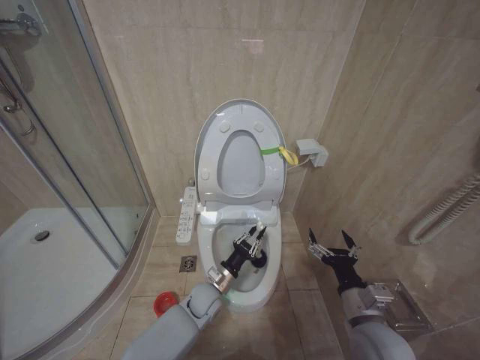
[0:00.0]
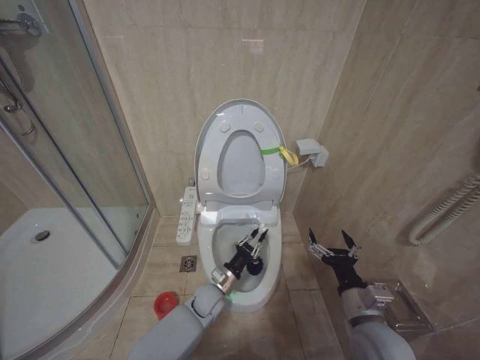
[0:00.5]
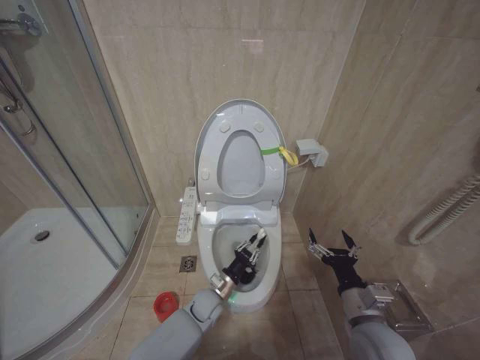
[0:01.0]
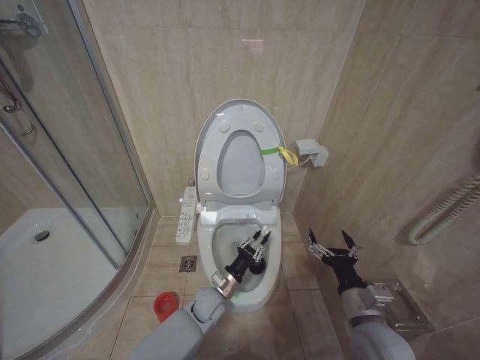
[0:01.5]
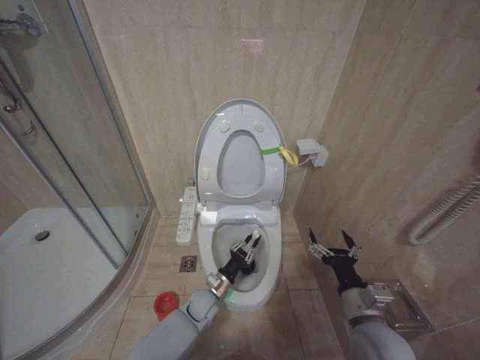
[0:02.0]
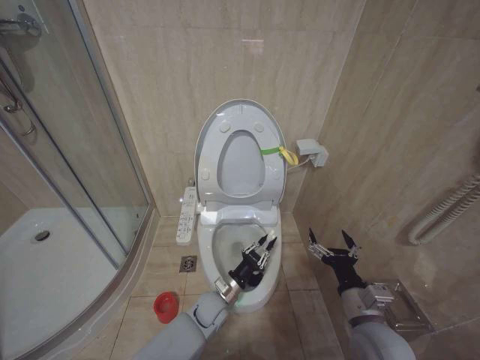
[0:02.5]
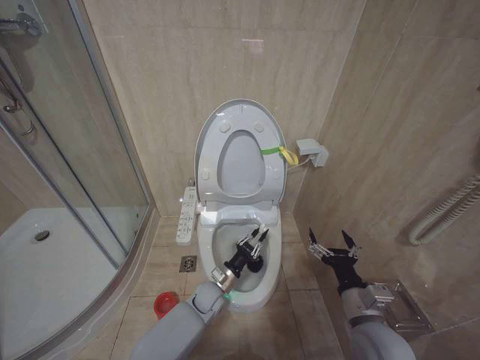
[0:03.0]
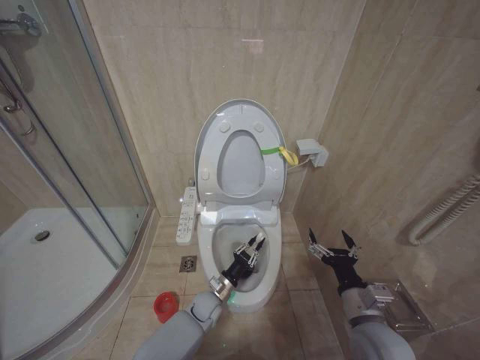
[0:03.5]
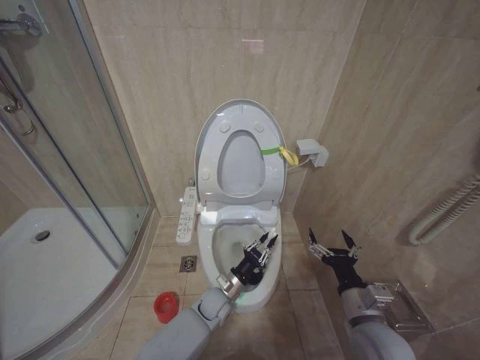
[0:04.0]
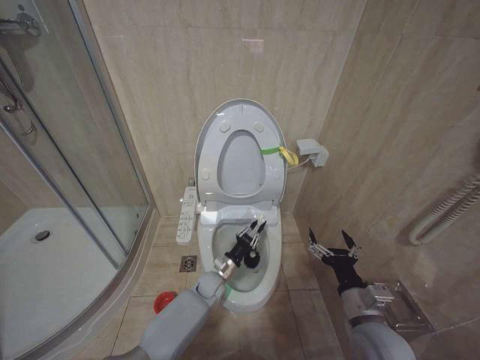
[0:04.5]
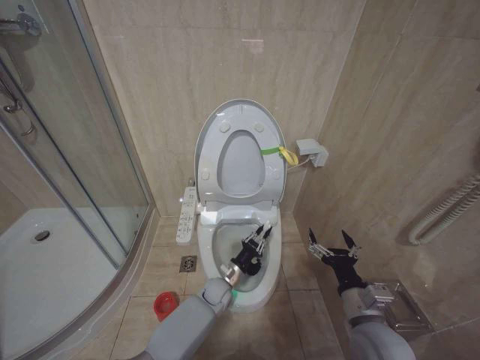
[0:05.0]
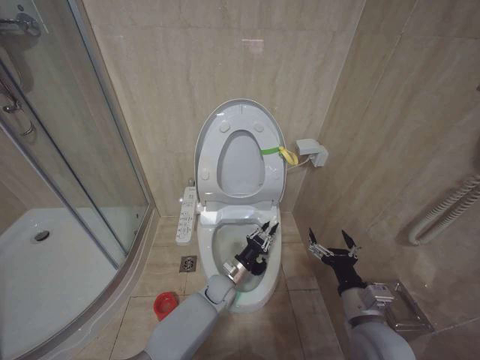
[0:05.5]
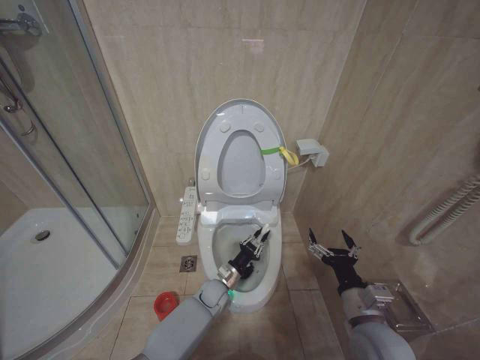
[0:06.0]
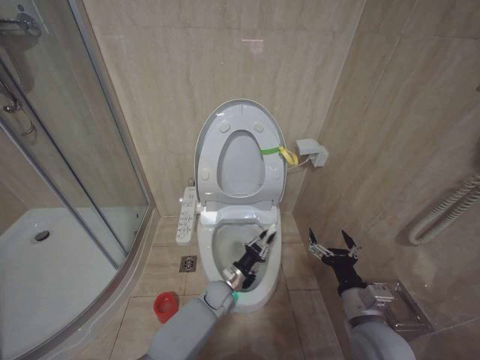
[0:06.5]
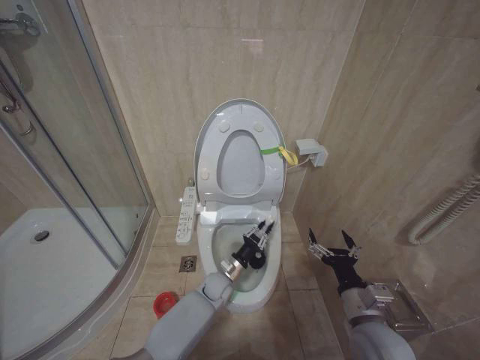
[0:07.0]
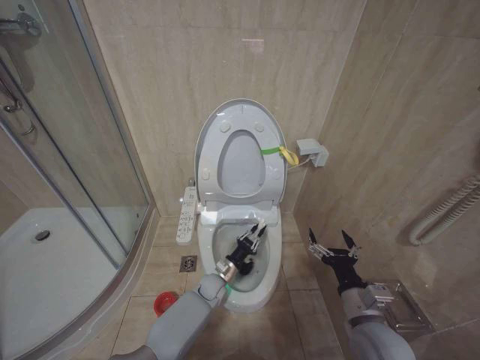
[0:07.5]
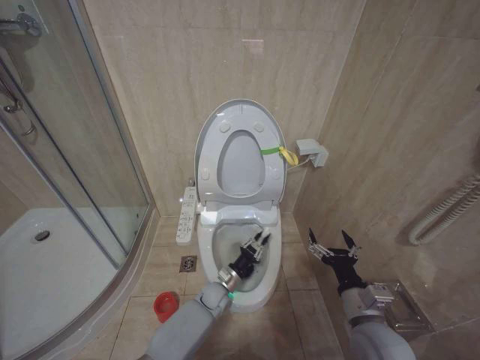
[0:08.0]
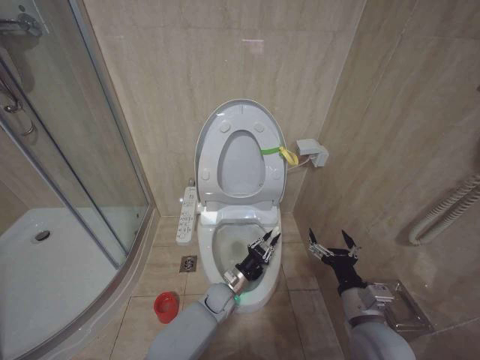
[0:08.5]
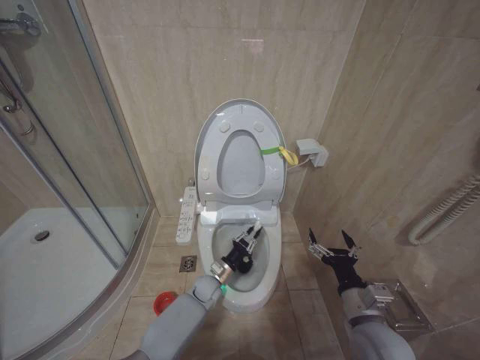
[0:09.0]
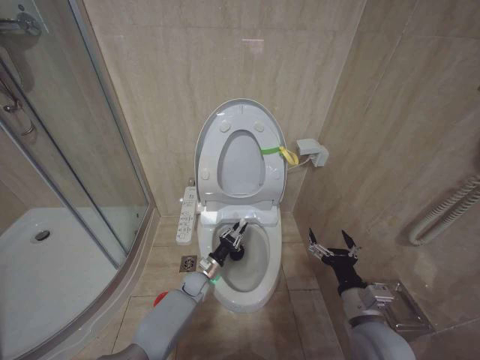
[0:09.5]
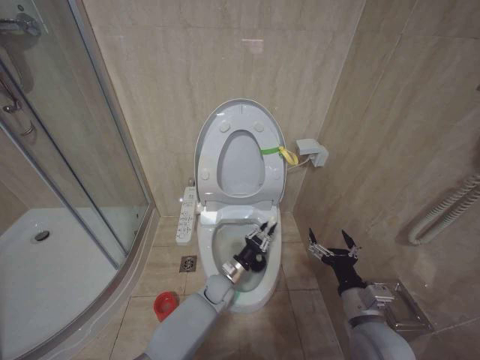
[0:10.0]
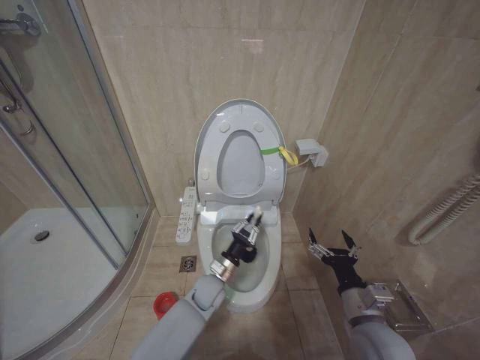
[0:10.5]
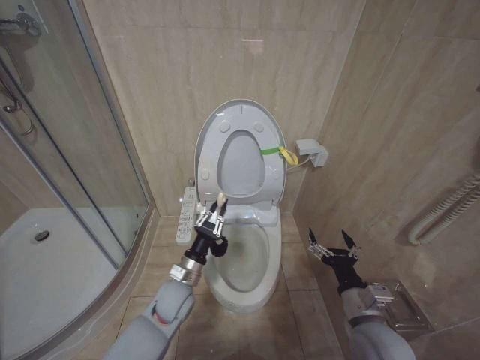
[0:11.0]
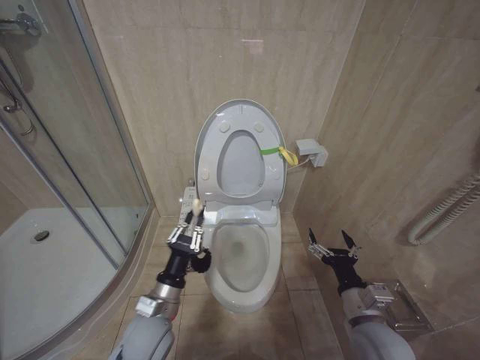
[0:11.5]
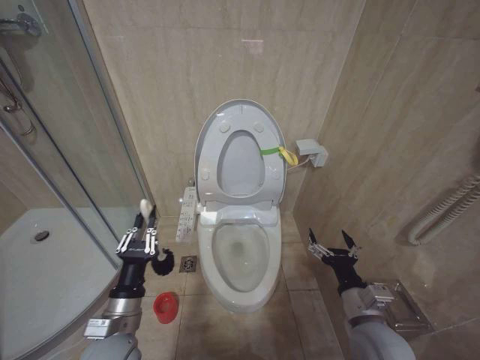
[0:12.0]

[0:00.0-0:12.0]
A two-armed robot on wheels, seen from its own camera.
Task of the whole recording: Open the toilet lid, clean the toilet bowl with a toilet brush, close the toilet lid, and flush.
0:00.0 to 0:02.0: The left gripper shifts about 5 cm downward.
0:02.0 to 0:04.0: The grippers move only a little.
0:08.0 to 0:10.0: The left gripper reaches approximately 5 cm to the left, then returns.
0:10.0 to 0:12.0: The left gripper goes roughly 30 cm backward, to the left and upward.

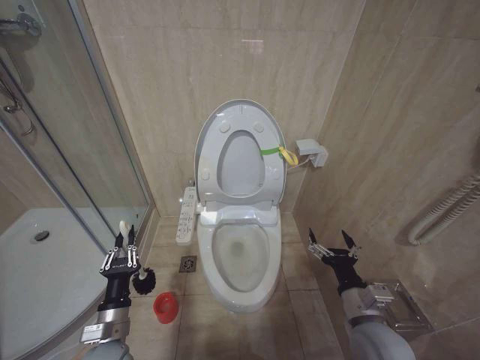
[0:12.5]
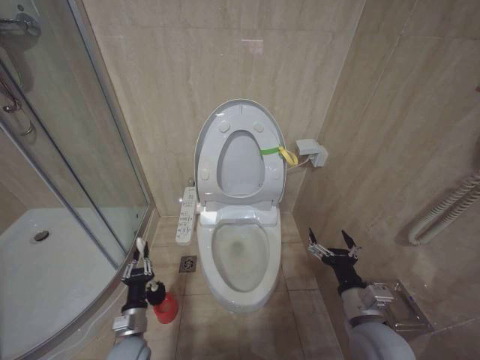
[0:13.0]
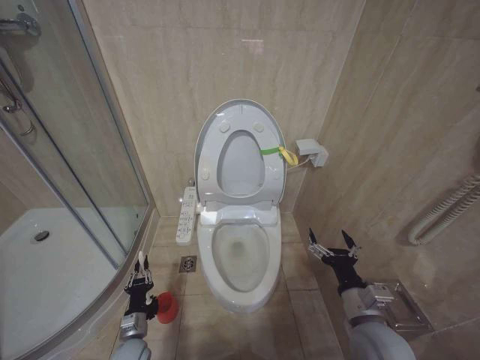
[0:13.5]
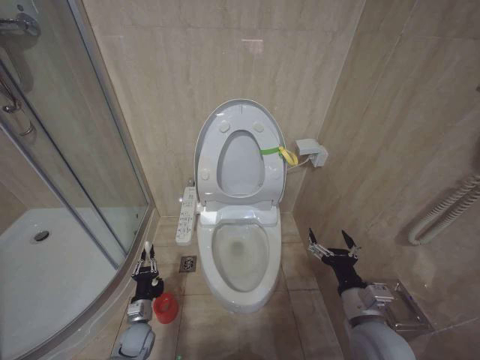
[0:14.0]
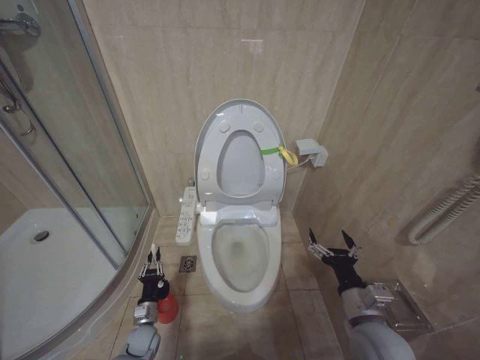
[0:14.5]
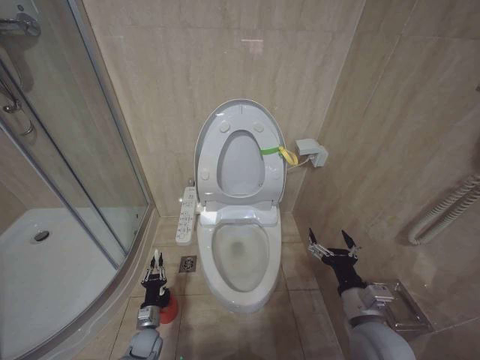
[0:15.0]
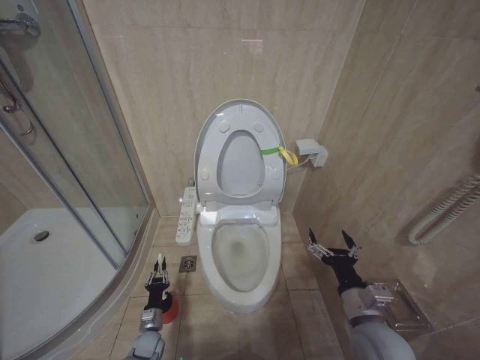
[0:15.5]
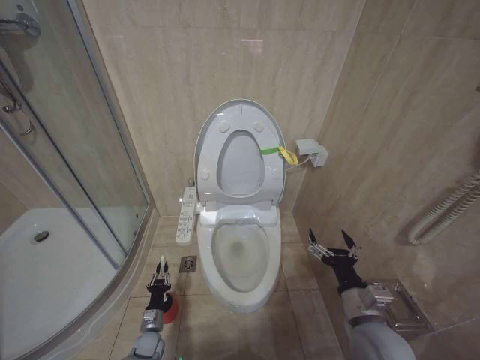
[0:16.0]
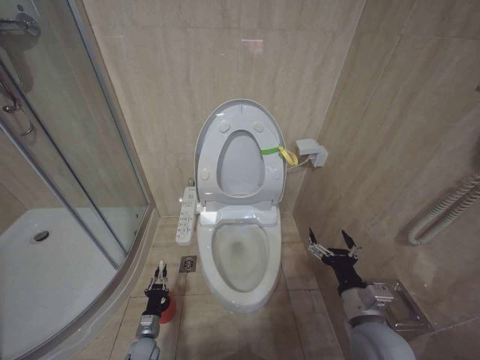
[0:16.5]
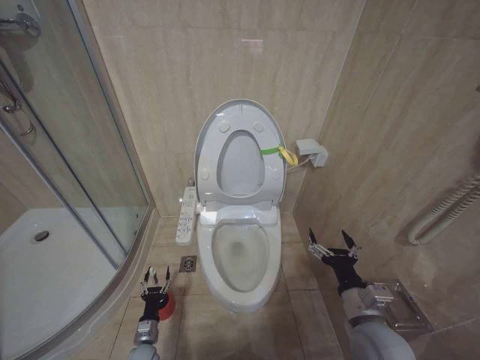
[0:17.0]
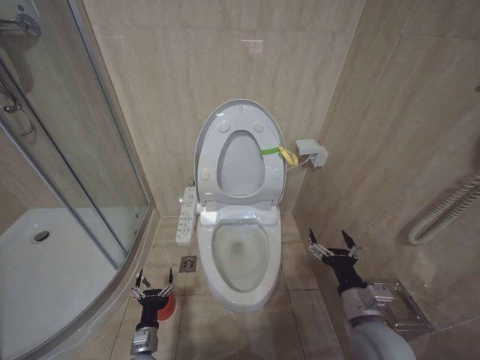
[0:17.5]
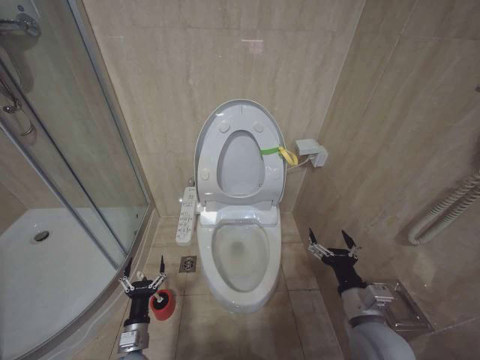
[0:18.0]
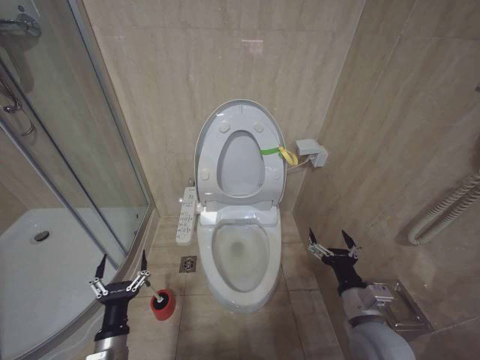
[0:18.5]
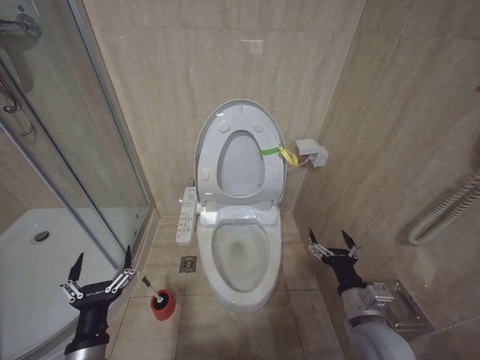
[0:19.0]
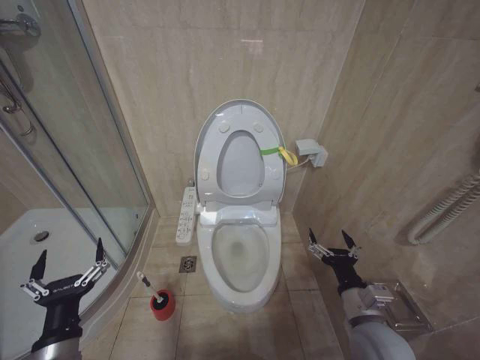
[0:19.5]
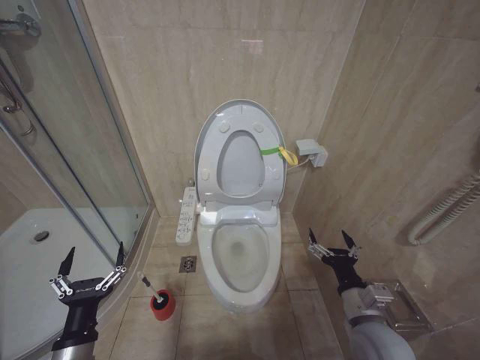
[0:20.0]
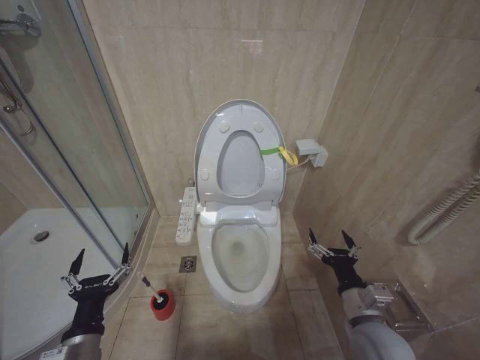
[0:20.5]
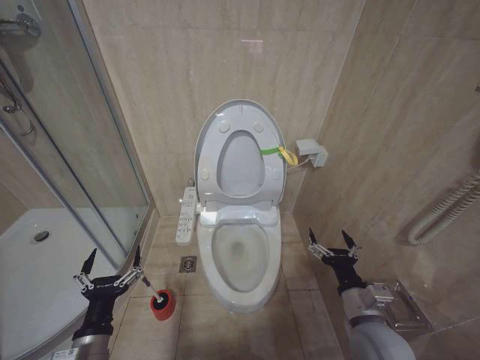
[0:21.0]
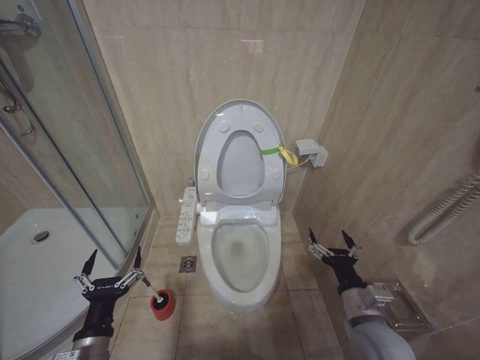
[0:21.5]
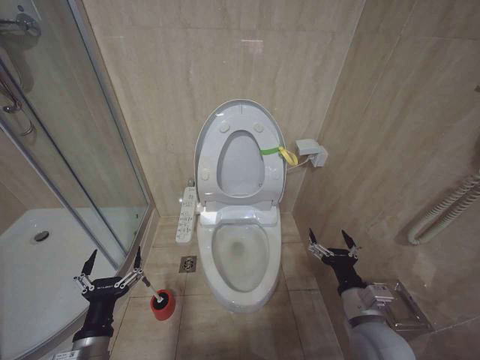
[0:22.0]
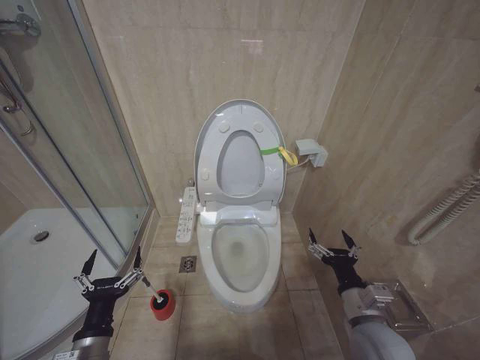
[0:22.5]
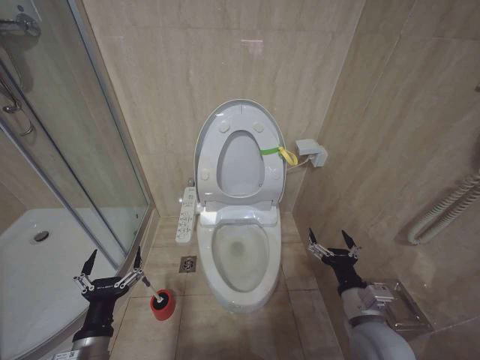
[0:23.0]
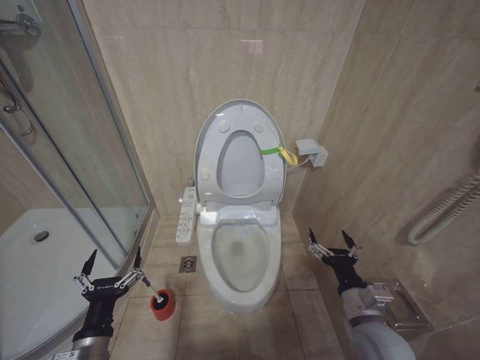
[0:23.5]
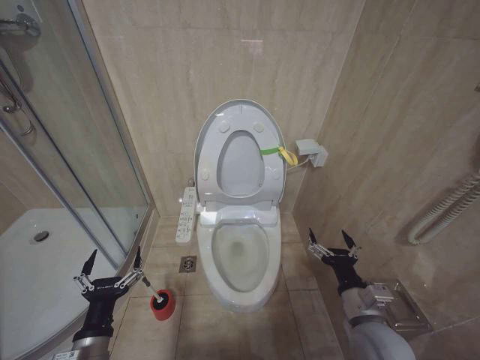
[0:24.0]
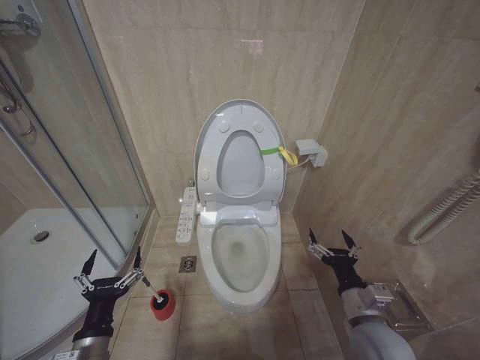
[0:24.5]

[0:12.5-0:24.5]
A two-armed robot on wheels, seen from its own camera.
Task of the whole recording: Open the toilet lid, clean the toilet bowl with a toilet brush, close the toilet lid, and flush.
0:12.5 to 0:14.5: The left gripper is displaced downward and forward by approximately 25 cm.
0:14.5 to 0:16.5: The left gripper travels downward by roughly 5 cm.
0:16.5 to 0:18.5: The left gripper shifts roughly 25 cm upward and backward, and opens up.
0:18.5 to 0:20.5: The left gripper travels upward by approximately 10 cm.
0:20.5 to 0:22.5: There are only small adjustments of the grippers.
0:22.5 to 0:24.5: Both grippers stay put.

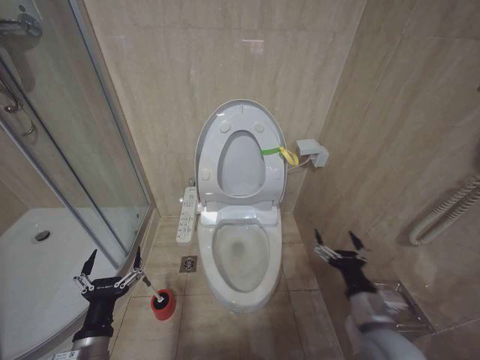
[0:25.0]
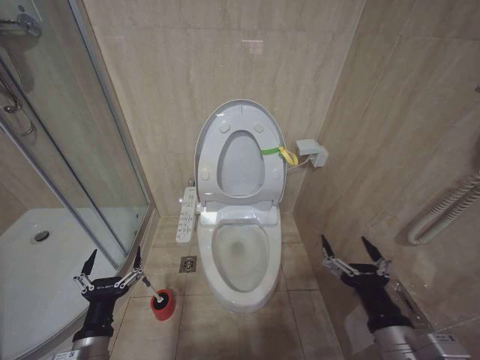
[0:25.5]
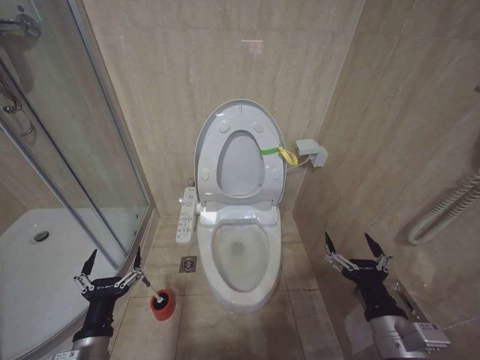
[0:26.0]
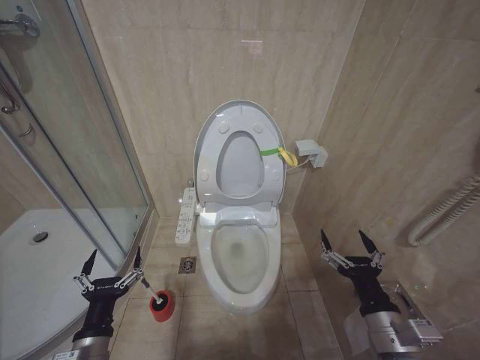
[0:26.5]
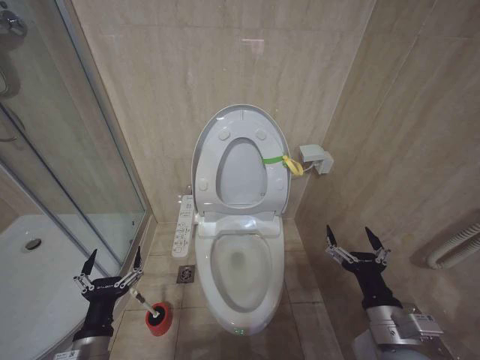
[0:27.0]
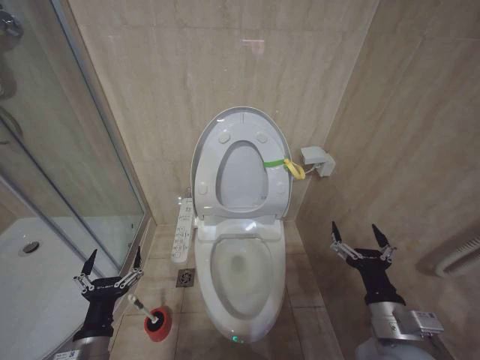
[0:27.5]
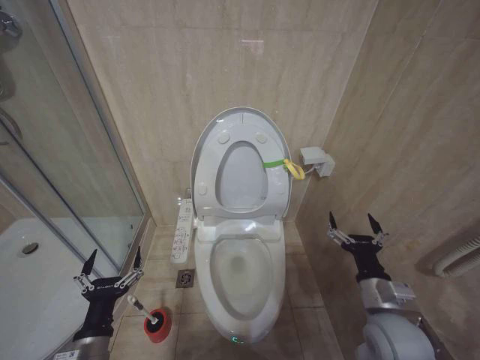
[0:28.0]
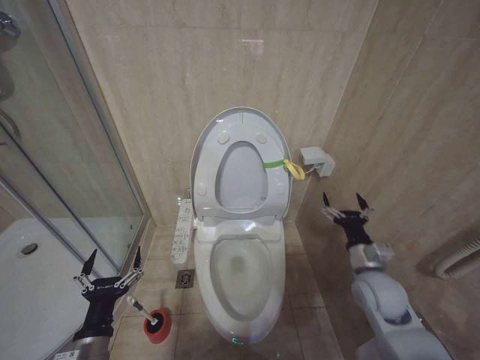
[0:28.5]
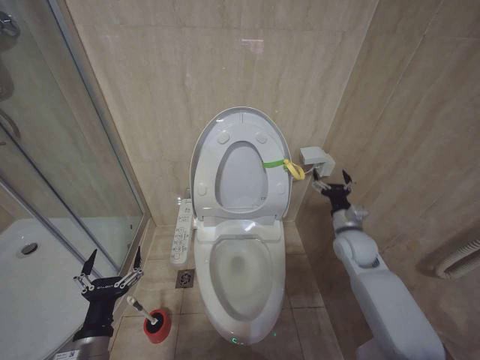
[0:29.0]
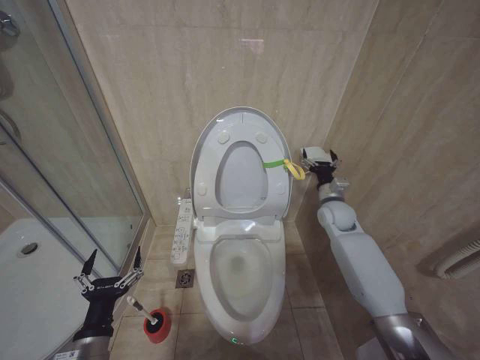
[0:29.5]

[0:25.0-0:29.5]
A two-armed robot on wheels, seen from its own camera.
Task of the whole recording: Open the toilet lid, clean the toilet bowl with a toilet brush, close the toilet lid, and flush.
0:27.0 to 0:29.5: The right gripper is displaced forward by roughly 35 cm.
